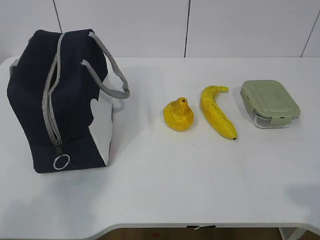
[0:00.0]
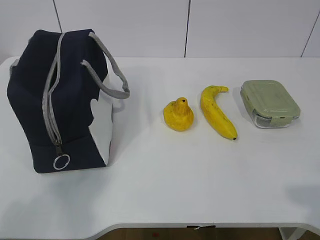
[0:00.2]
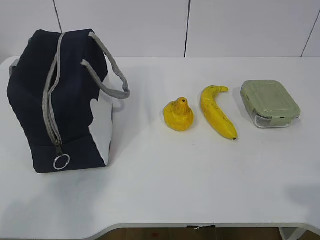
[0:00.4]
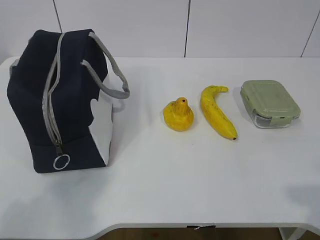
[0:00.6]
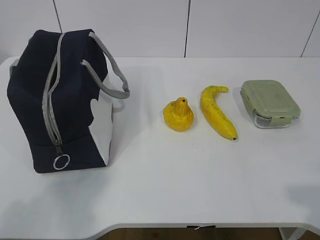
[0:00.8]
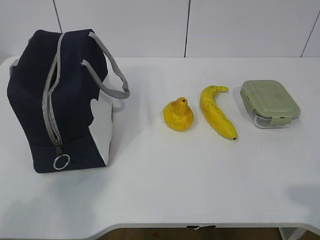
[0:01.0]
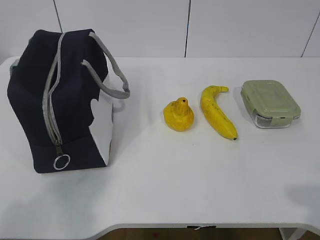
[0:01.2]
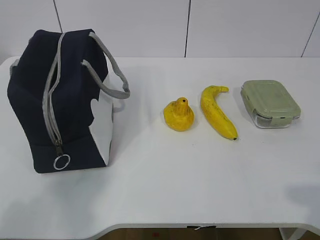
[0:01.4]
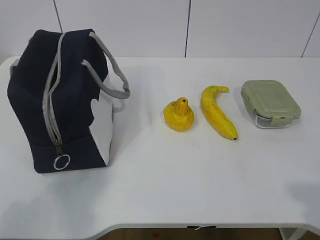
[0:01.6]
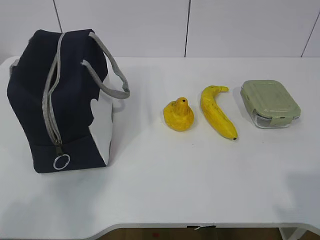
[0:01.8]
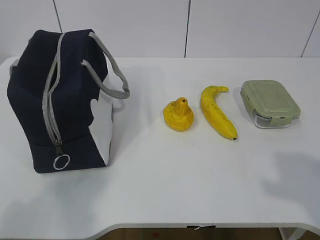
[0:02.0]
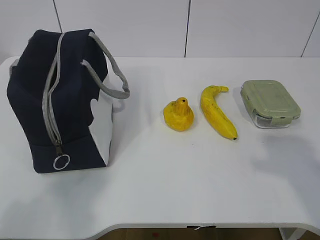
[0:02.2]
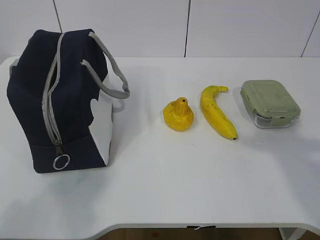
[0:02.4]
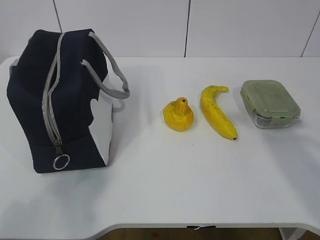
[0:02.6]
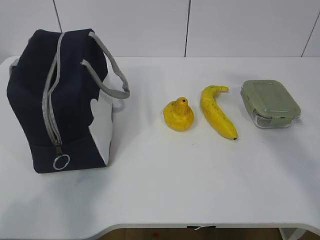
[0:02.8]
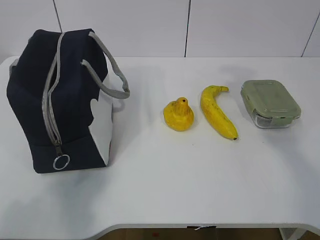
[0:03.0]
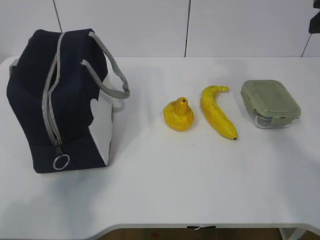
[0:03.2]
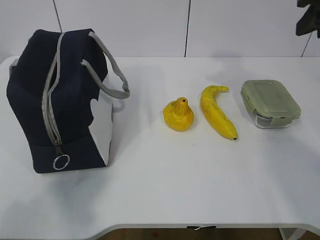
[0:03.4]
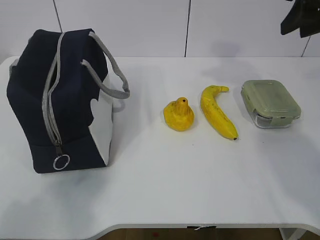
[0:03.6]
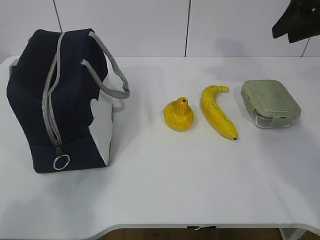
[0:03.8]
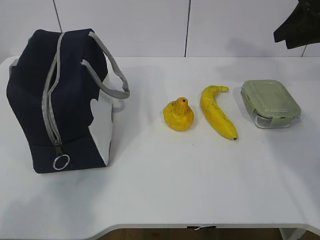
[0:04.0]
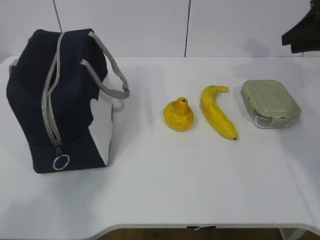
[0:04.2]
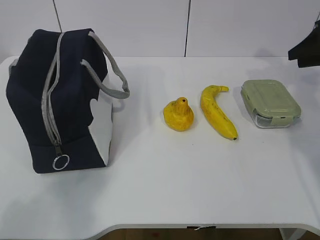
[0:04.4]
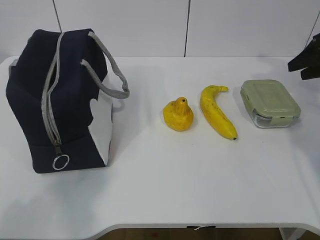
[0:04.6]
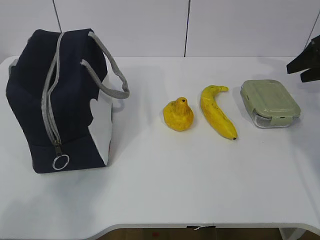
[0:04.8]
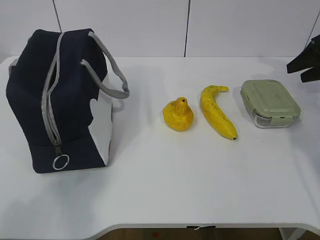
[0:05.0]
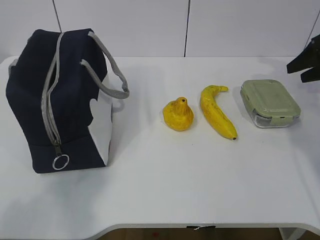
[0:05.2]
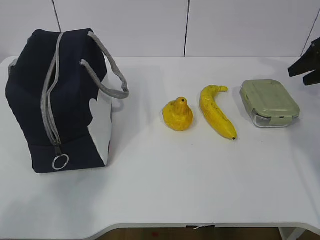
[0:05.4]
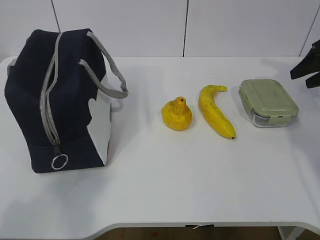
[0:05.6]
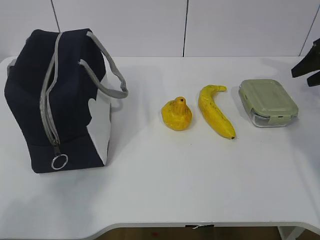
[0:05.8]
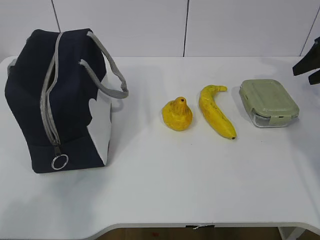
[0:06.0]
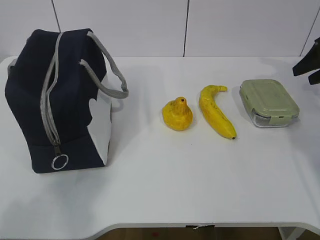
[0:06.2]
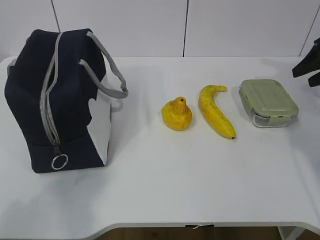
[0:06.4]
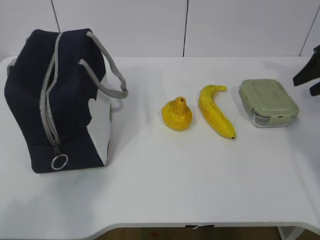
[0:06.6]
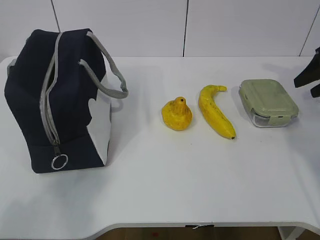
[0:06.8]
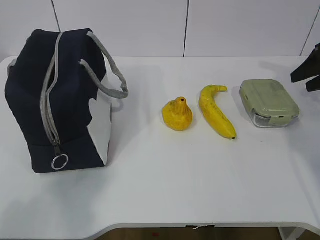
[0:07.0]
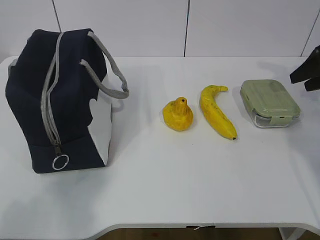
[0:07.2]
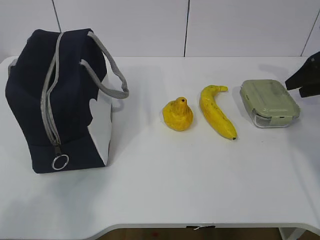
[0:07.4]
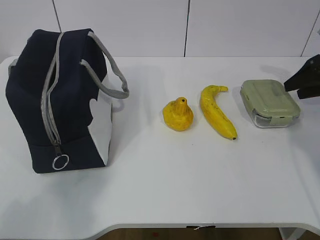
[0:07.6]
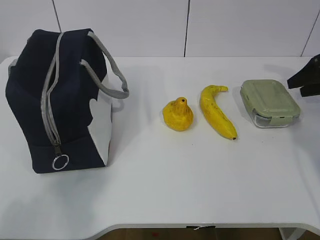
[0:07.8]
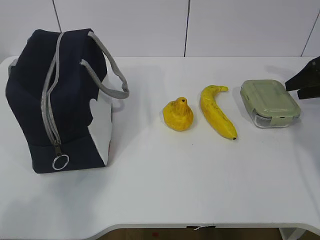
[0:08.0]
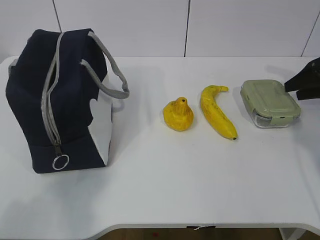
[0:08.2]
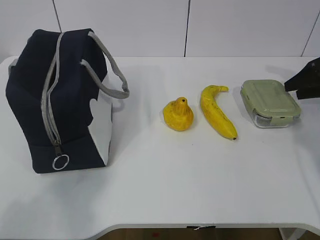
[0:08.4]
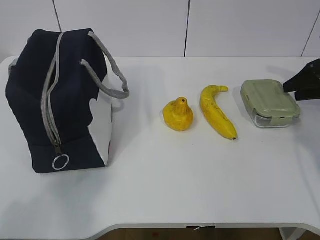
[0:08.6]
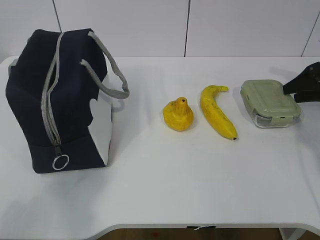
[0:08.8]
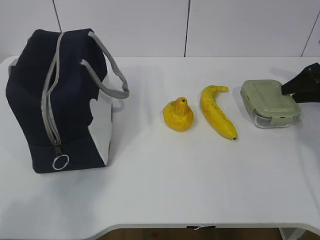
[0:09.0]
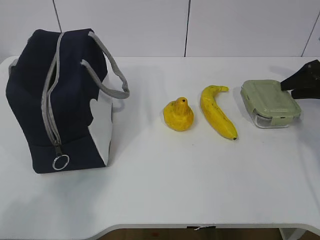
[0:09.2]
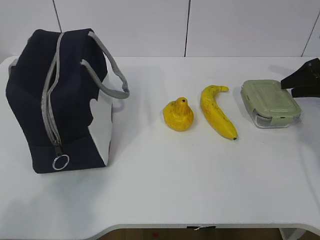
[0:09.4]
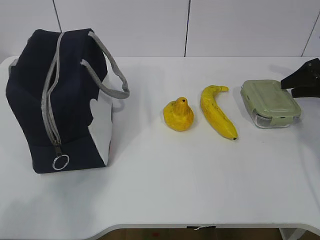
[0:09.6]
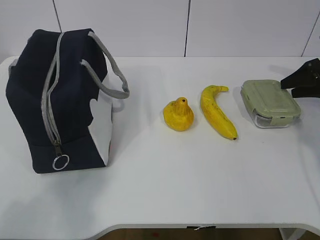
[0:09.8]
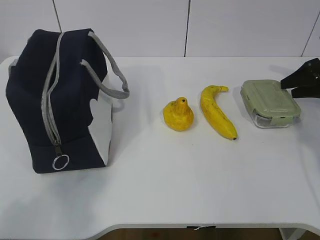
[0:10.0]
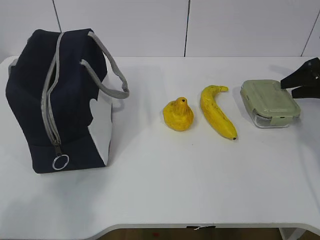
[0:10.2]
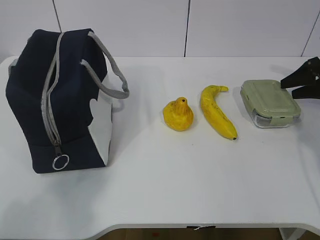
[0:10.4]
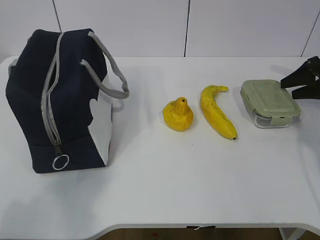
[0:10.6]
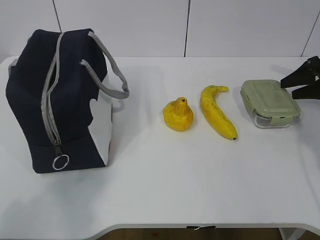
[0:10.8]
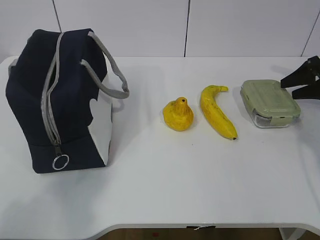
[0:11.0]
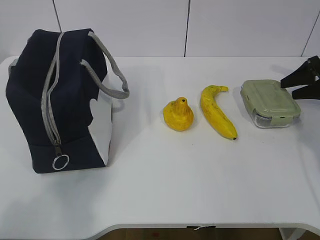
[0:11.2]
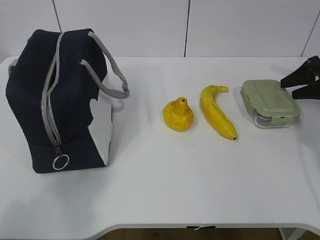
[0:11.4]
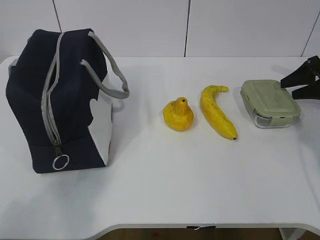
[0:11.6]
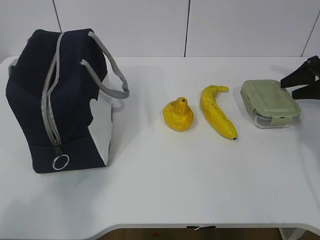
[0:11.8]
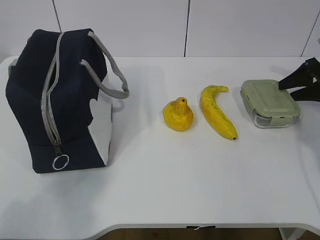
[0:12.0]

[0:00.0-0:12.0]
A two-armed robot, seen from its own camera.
0:01.6 to 0:03.0: The right gripper goes approximately 25 cm forward.
0:03.0 to 0:04.4: The right gripper shifts some 25 cm forward, to the right and downward.
0:04.4 to 0:07.6: The grippers make only small movements.
0:09.0 to 0:10.4: Both grippers stay put.
0:10.4 to 0:12.0: Both grippers stay put.

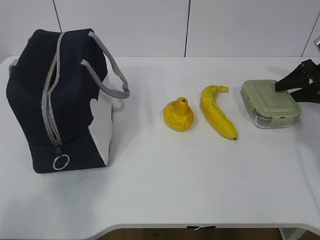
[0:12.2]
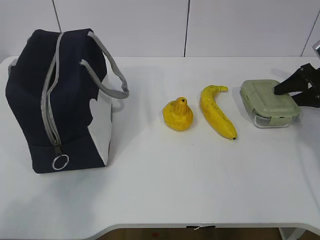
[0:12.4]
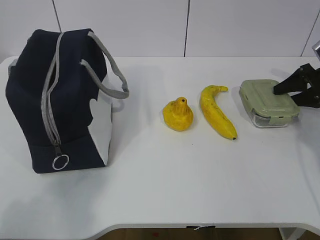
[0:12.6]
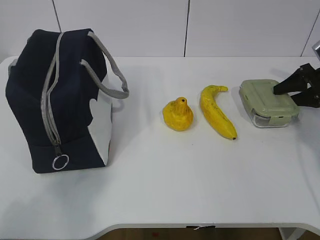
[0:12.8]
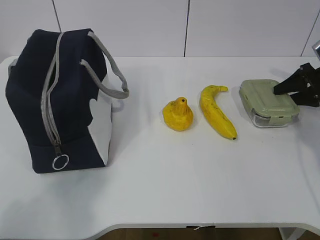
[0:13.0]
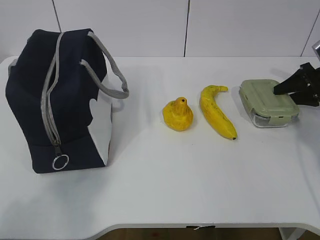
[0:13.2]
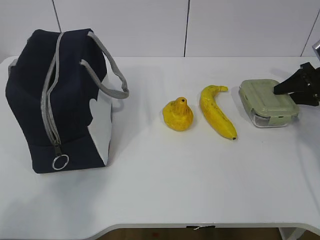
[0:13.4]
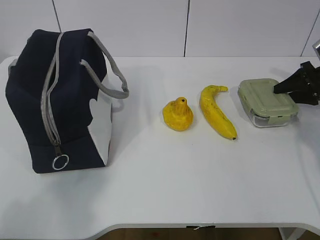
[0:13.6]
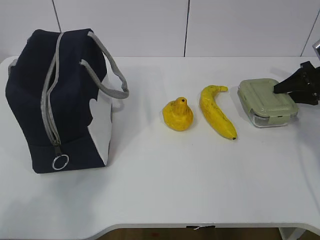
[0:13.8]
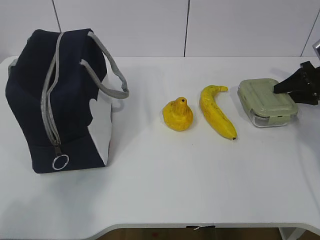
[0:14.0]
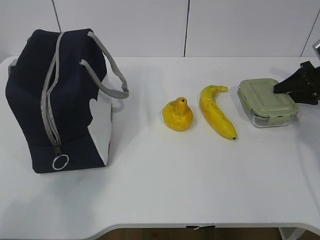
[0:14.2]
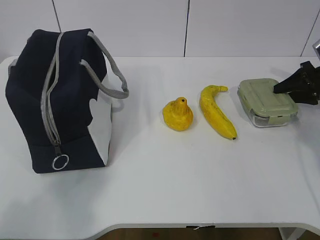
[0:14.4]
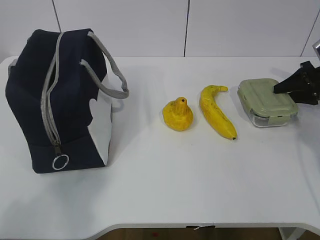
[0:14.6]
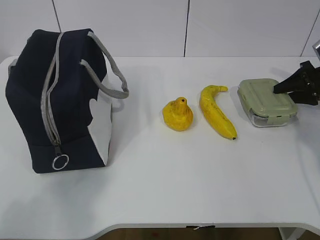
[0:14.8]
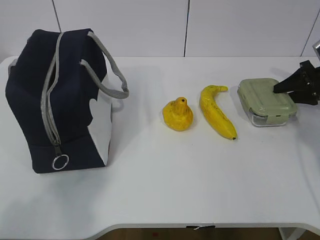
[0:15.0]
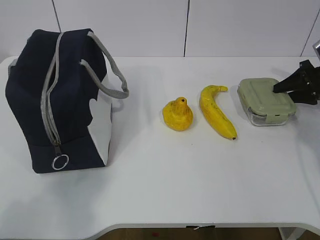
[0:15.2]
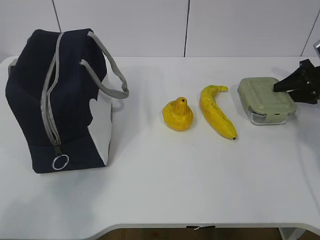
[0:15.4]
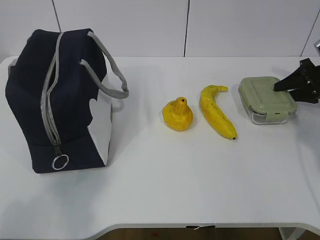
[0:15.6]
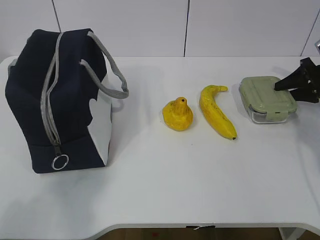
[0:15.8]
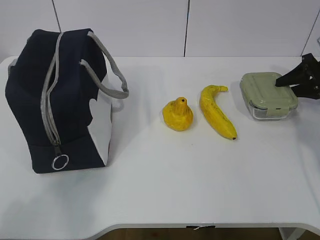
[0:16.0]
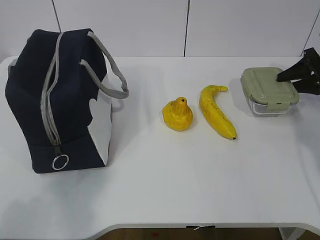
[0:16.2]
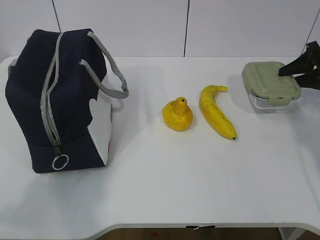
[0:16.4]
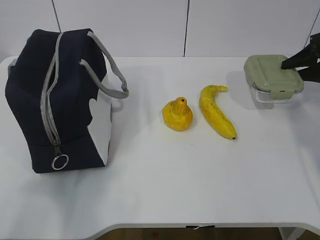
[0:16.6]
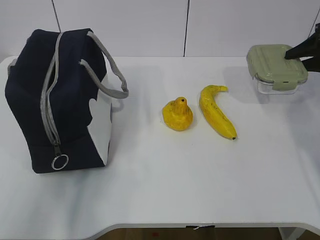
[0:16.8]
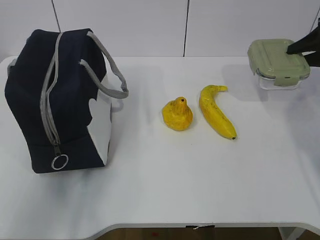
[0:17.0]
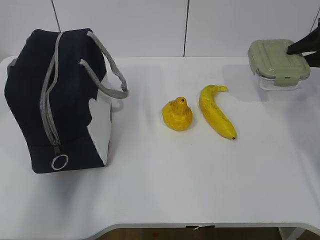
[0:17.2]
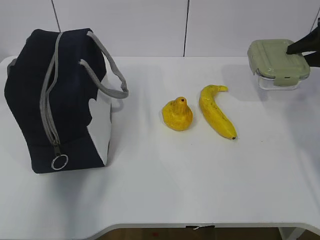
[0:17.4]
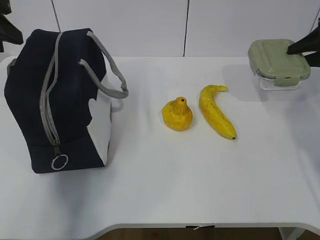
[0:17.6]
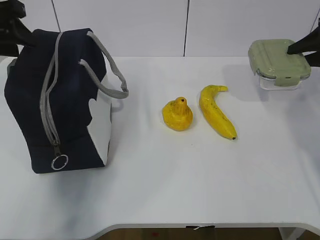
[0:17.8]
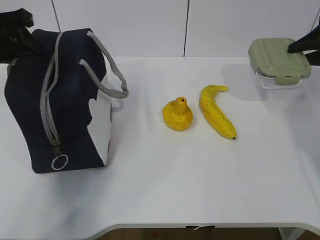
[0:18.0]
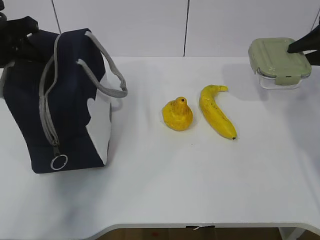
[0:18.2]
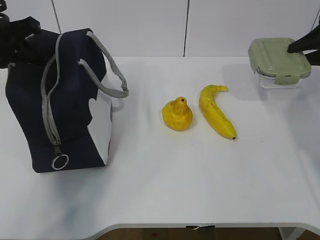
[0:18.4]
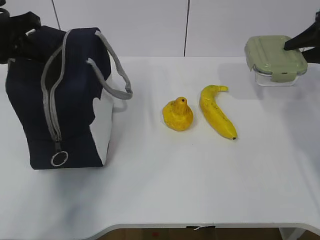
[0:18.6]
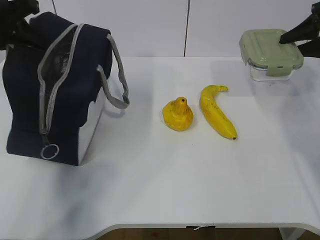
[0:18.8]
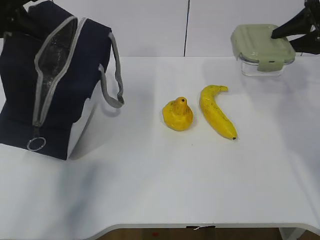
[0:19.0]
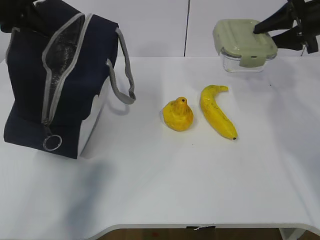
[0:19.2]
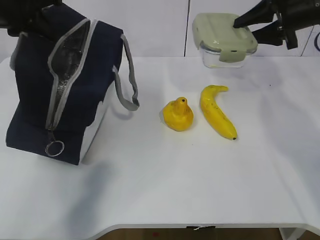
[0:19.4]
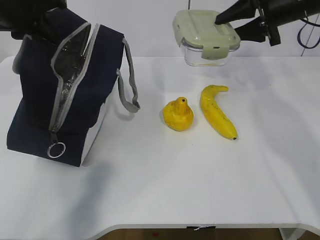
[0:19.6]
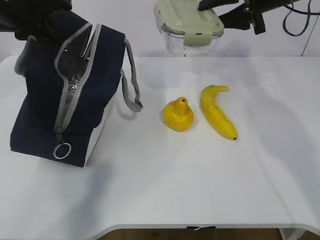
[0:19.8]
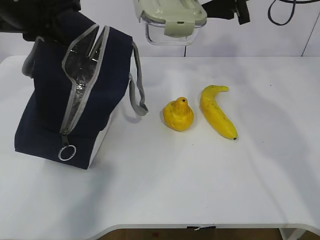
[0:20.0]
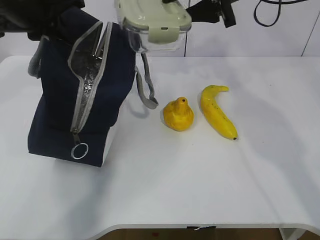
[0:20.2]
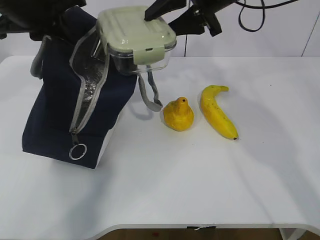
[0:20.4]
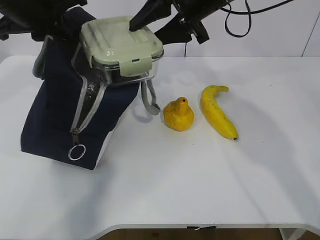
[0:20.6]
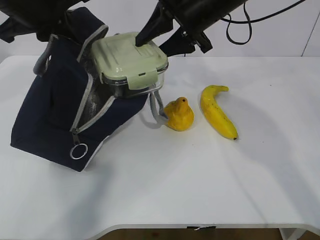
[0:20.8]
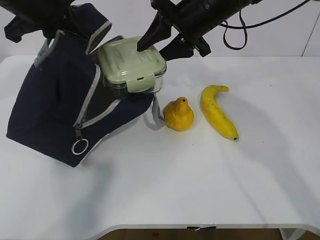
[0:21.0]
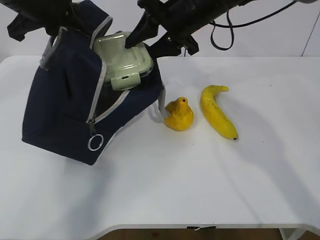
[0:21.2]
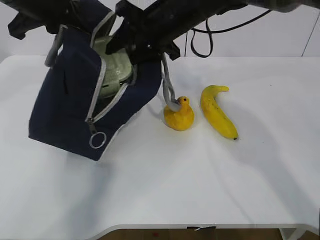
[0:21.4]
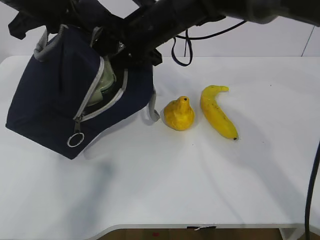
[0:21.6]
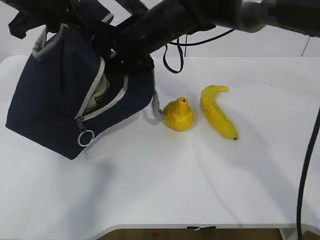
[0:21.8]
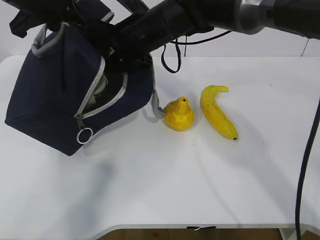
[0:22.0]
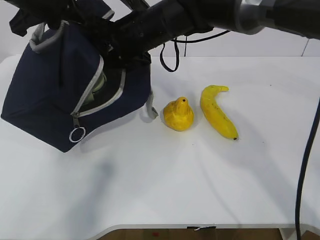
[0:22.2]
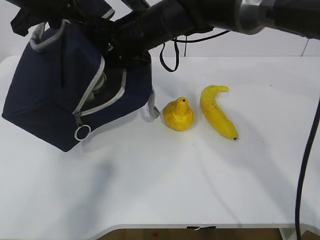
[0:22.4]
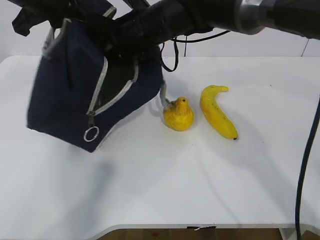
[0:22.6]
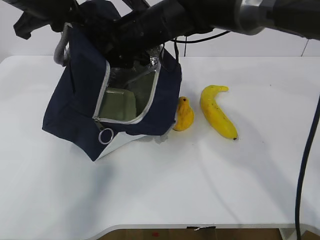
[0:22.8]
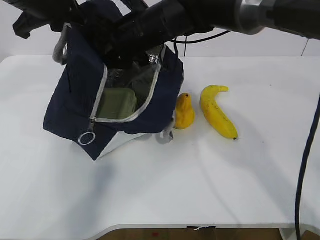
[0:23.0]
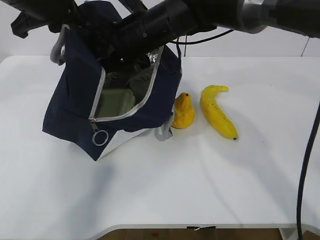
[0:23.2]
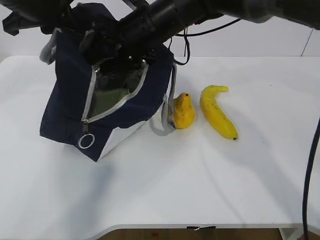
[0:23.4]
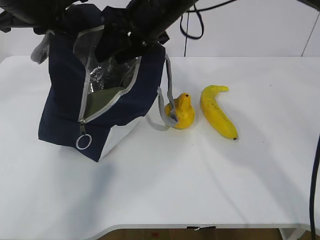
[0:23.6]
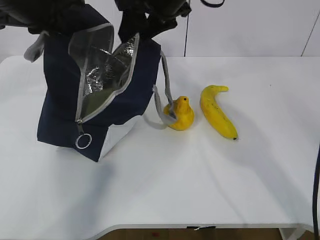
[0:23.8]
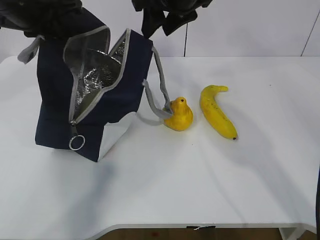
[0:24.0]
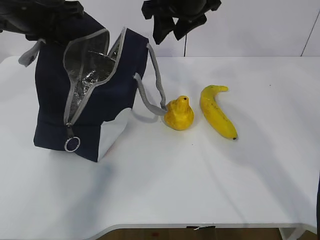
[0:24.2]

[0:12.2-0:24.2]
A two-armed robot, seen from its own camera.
Step, 0:14.2 to 0:18.2: Grasp the package with the left gripper.
Step, 0:18.4 to 0:22.8: Place the box into the package with the right gripper.
0:12.2 to 0:13.8: Neither gripper changes place.
0:13.8 to 0:15.2: Both grippers stay put.
0:15.2 to 0:16.6: The right gripper goes about 5 cm upward.
0:16.6 to 0:18.2: The left gripper goes about 30 cm forward.
0:18.2 to 0:19.8: The left gripper is displaced to the right by roughly 5 cm, and closes up; the right gripper is displaced to the left and upward by about 20 cm.
0:19.8 to 0:21.2: The right gripper heads to the left, covering some 15 cm.
0:21.2 to 0:22.6: The right gripper shifts some 10 cm to the left.
0:22.6 to 0:24.2: The right gripper moves to the right and upward, about 10 cm.
